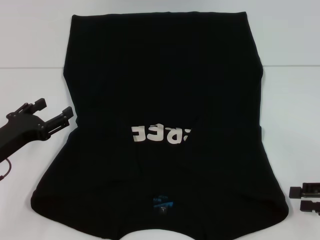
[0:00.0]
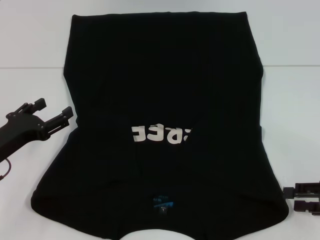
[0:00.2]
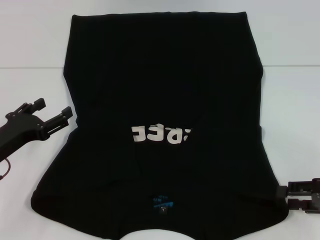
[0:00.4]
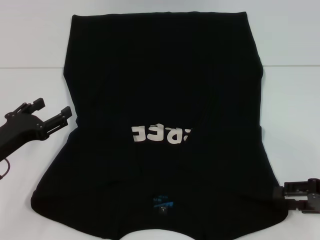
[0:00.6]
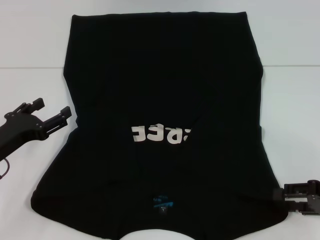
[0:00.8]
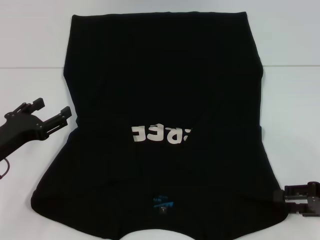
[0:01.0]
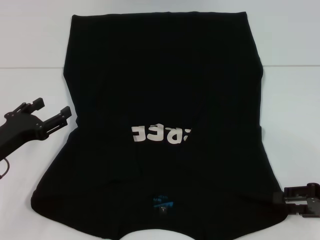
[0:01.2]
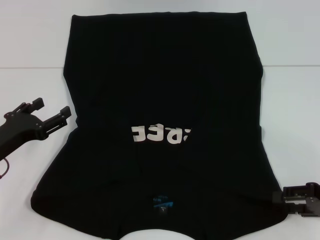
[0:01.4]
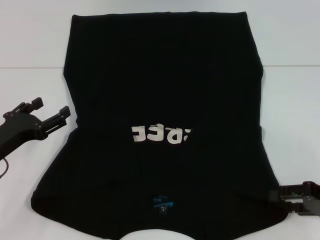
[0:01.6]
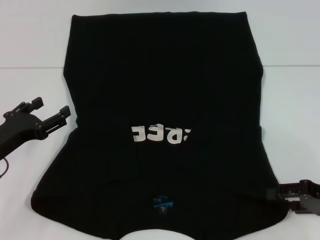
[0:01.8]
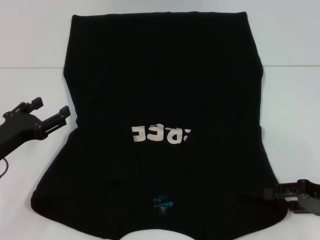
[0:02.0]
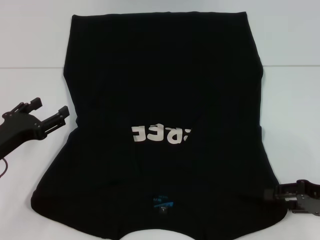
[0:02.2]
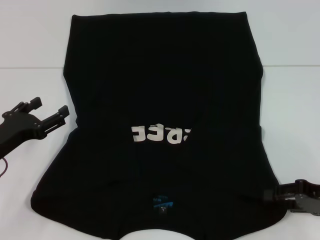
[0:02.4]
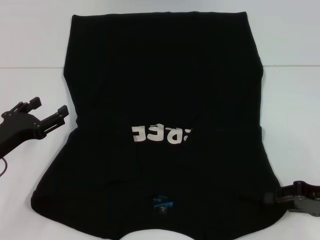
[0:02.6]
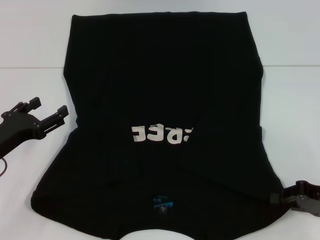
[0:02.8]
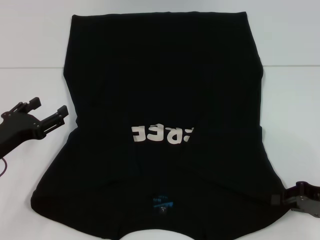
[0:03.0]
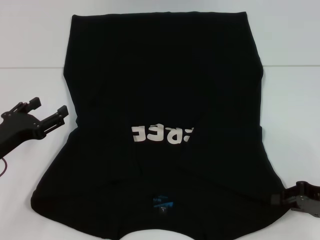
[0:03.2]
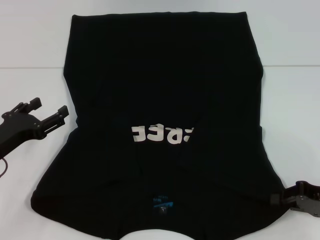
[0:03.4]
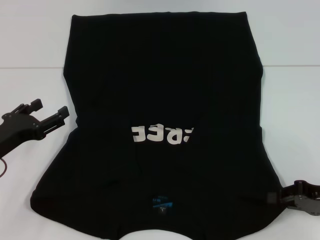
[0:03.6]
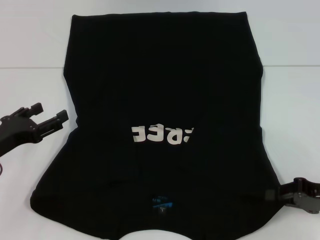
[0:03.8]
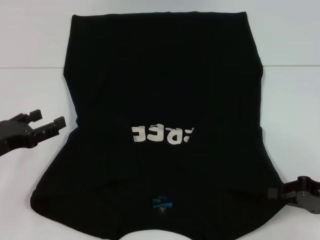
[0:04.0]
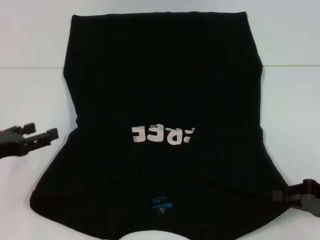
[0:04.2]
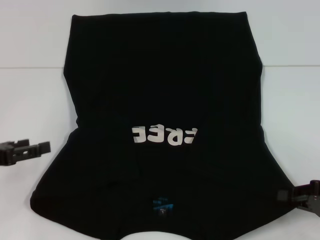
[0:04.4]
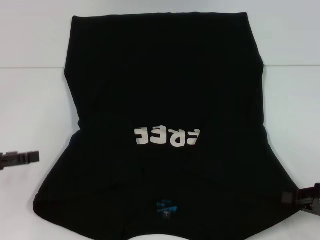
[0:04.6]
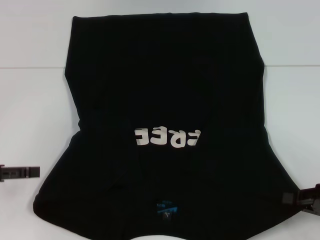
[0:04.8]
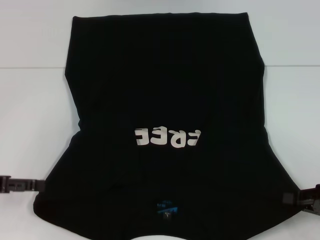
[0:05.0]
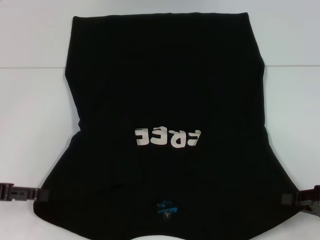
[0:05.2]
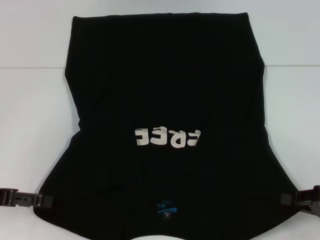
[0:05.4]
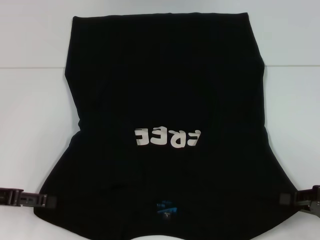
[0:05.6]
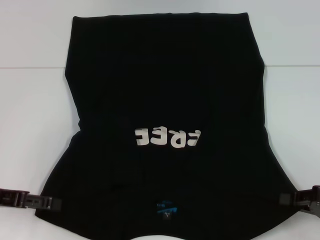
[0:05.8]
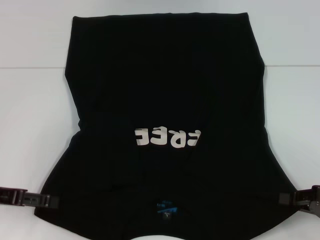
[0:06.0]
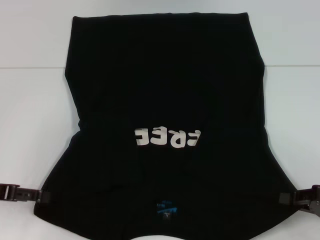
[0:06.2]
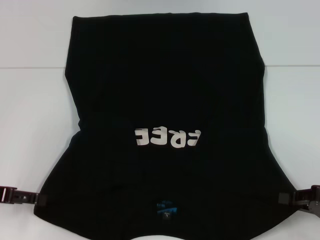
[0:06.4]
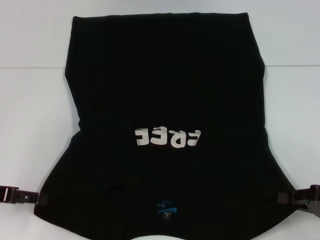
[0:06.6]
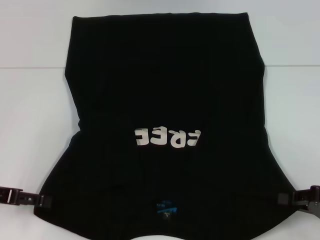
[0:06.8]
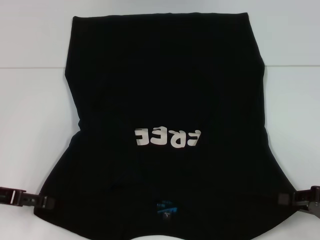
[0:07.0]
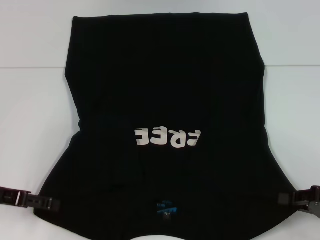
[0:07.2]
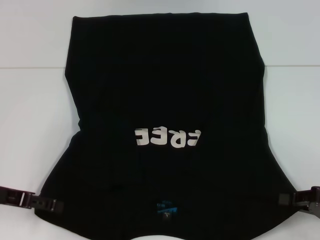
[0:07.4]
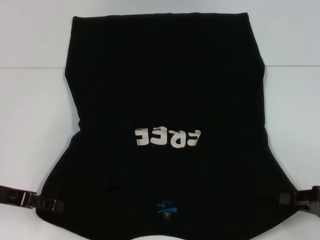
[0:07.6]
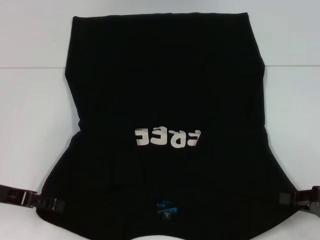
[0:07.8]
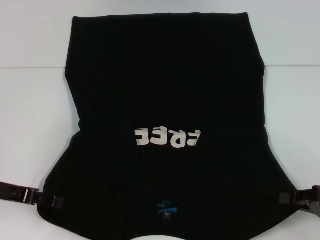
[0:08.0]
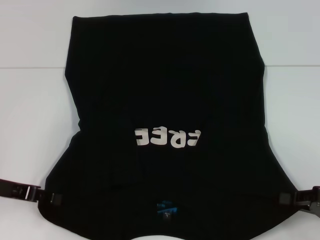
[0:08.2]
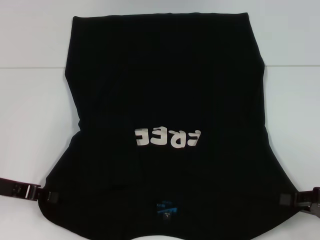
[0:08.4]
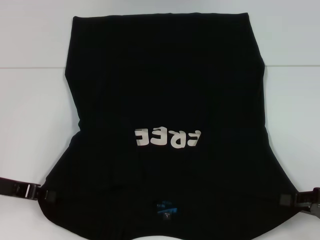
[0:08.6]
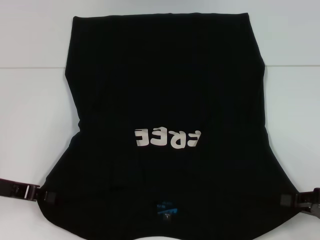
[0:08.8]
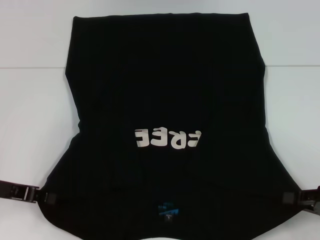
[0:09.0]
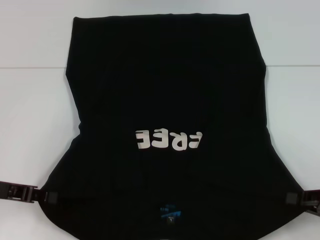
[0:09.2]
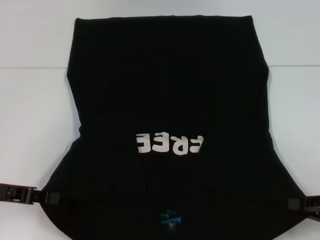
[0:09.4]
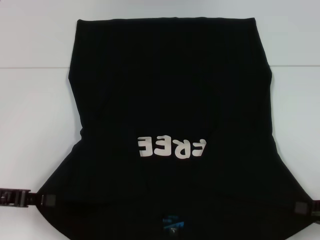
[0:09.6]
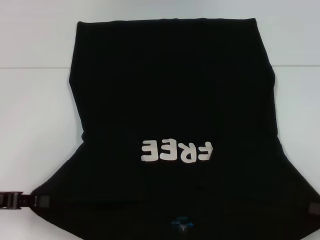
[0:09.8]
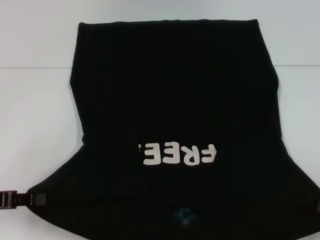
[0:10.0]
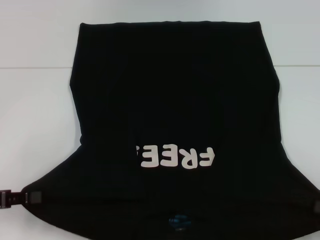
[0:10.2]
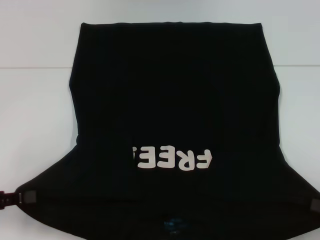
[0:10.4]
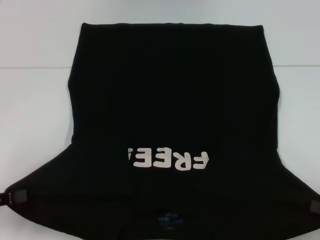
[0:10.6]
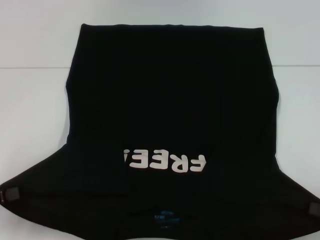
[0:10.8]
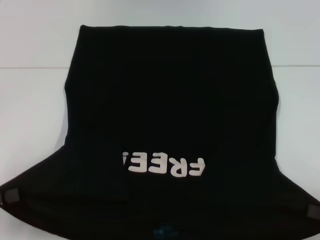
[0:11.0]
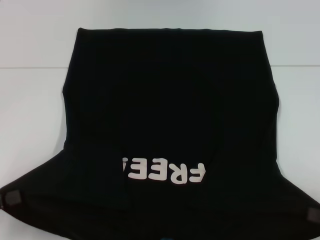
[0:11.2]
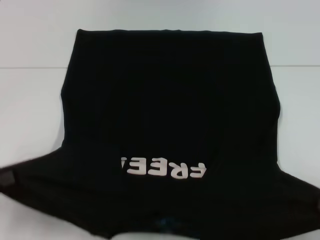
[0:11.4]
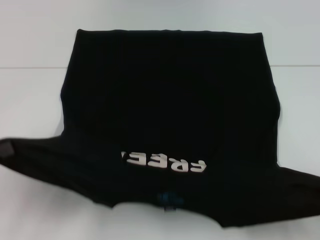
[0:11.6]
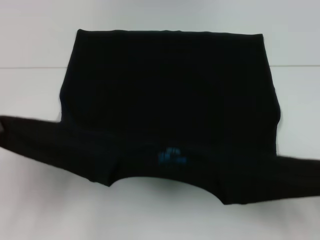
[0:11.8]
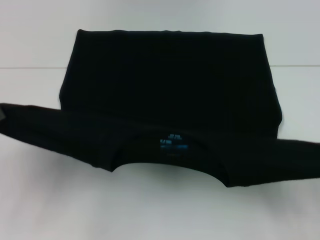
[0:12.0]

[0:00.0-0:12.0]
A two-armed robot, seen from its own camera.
Step, 0:00.0 to 0:03.4: Grab the bottom right corner with your right hand.
Step, 0:03.6 to 0:08.8: Grab the bottom left corner with your left hand.
0:00.0 to 0:01.6: The grippers move only a little.
0:01.6 to 0:03.0: The right gripper closes up.
0:03.0 to 0:04.4: The left gripper is displaced upward by approximately 5 cm.
0:07.6 to 0:09.0: The left gripper closes up.
0:09.0 to 0:10.4: The left gripper moves backward, approximately 5 cm, while the right gripper moves roughly 5 cm.

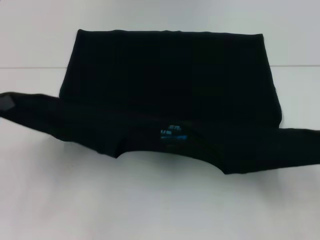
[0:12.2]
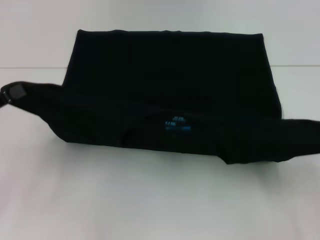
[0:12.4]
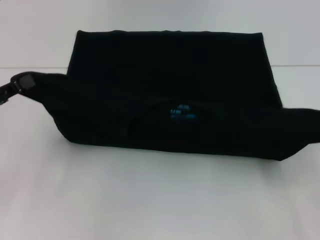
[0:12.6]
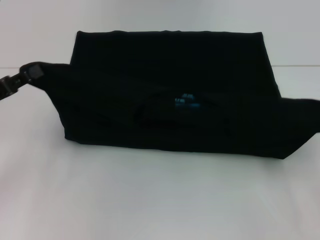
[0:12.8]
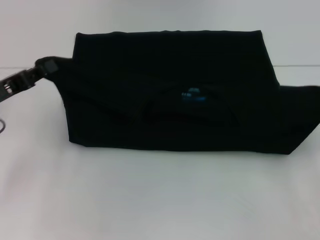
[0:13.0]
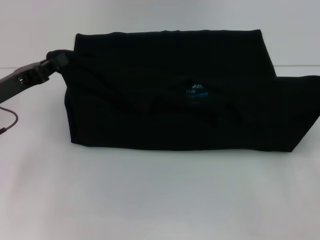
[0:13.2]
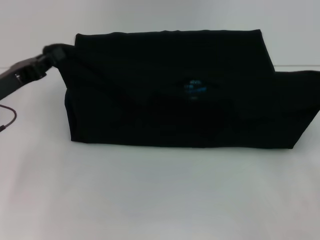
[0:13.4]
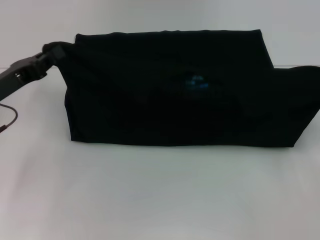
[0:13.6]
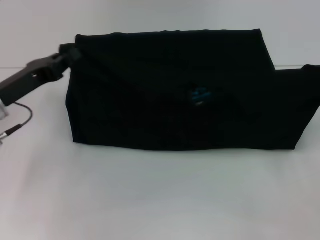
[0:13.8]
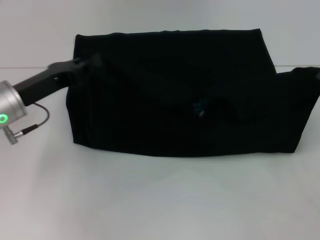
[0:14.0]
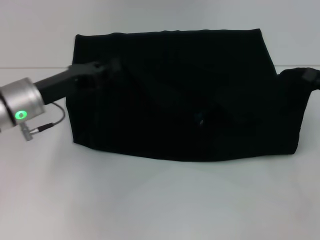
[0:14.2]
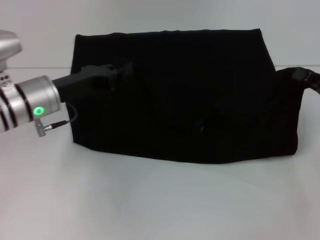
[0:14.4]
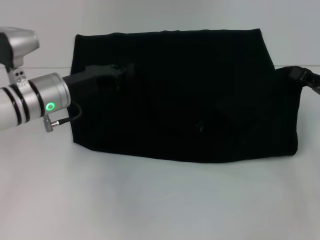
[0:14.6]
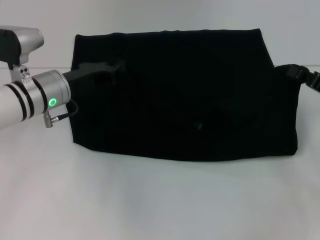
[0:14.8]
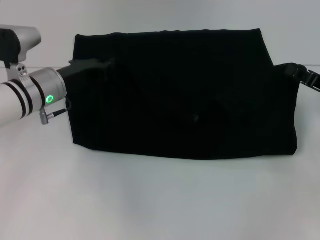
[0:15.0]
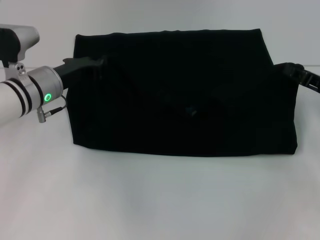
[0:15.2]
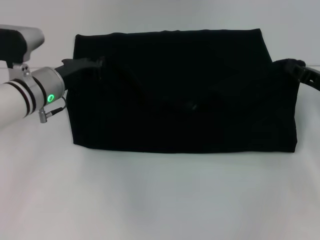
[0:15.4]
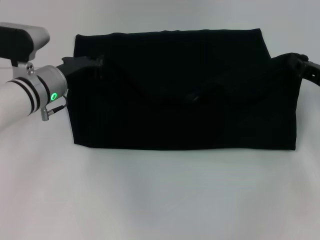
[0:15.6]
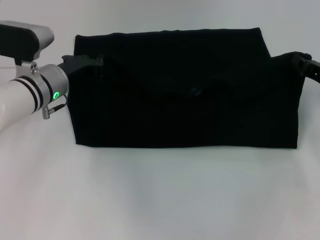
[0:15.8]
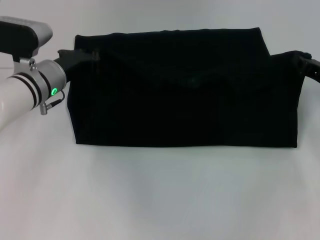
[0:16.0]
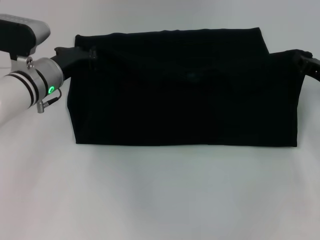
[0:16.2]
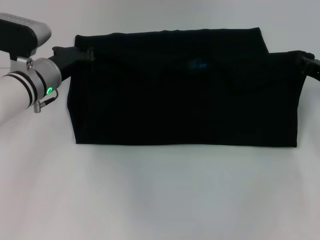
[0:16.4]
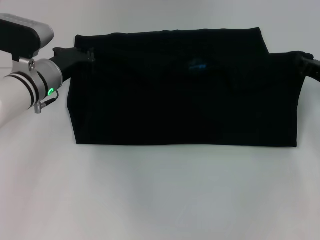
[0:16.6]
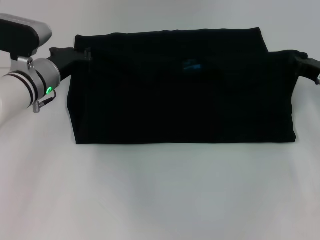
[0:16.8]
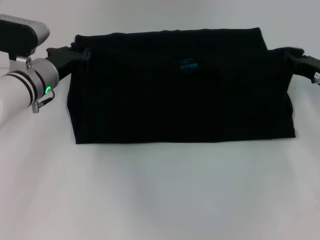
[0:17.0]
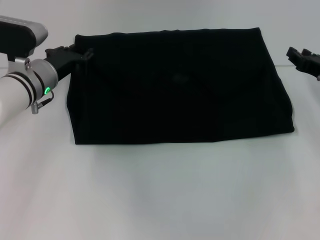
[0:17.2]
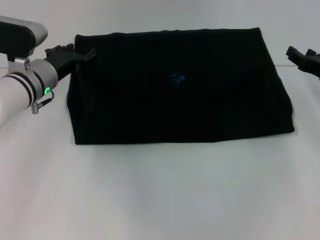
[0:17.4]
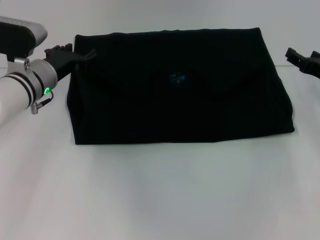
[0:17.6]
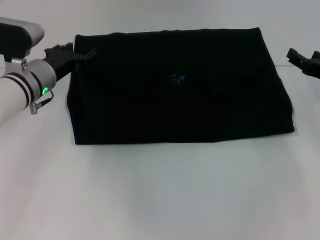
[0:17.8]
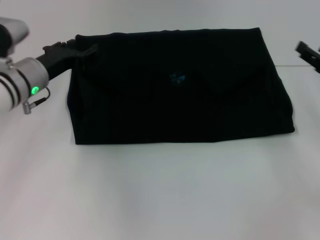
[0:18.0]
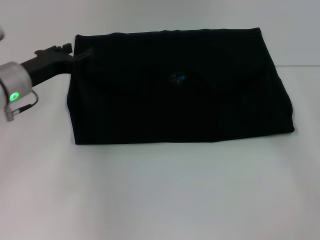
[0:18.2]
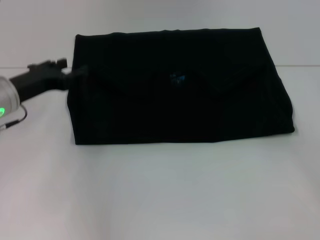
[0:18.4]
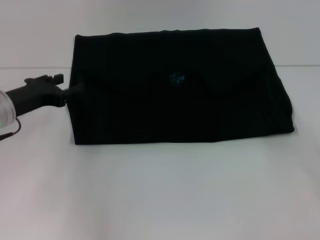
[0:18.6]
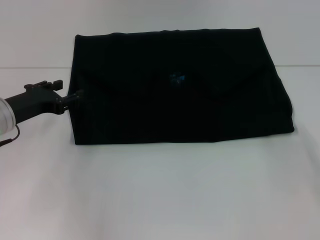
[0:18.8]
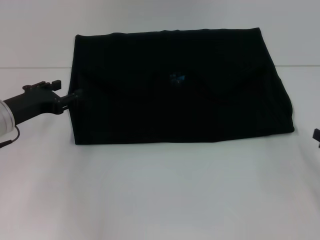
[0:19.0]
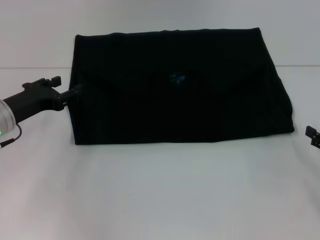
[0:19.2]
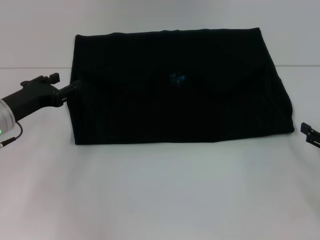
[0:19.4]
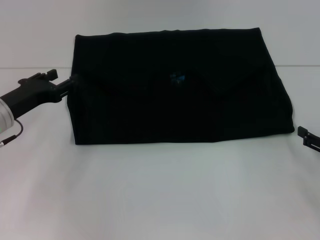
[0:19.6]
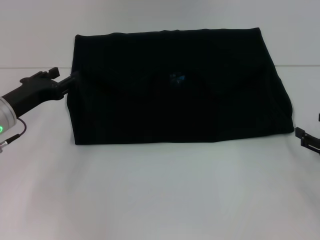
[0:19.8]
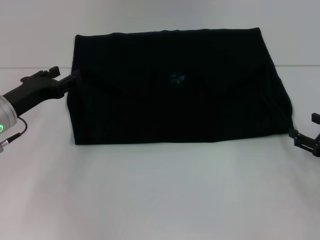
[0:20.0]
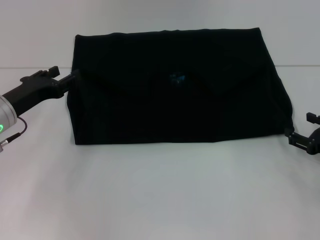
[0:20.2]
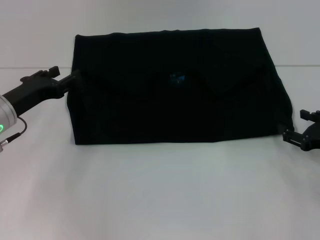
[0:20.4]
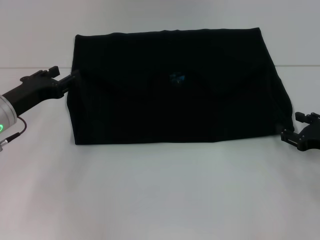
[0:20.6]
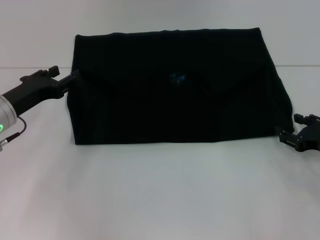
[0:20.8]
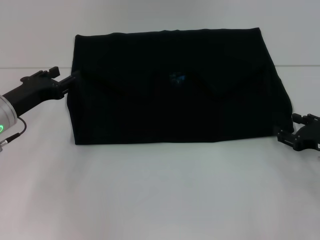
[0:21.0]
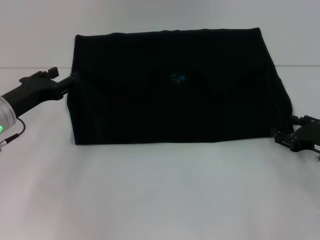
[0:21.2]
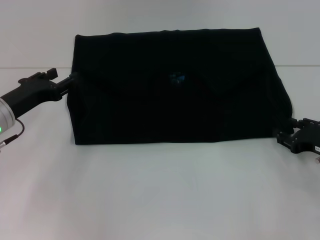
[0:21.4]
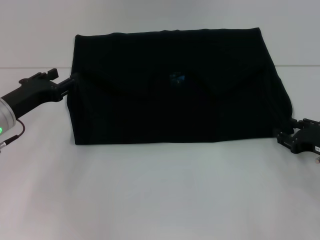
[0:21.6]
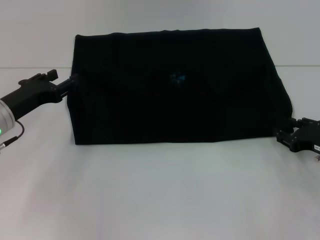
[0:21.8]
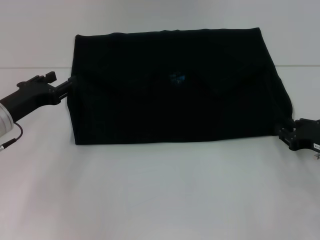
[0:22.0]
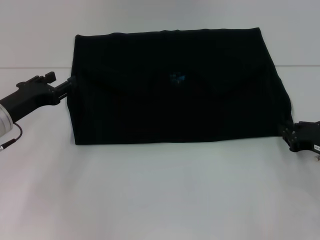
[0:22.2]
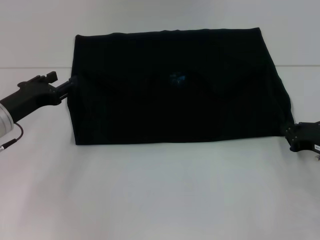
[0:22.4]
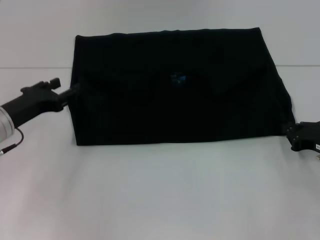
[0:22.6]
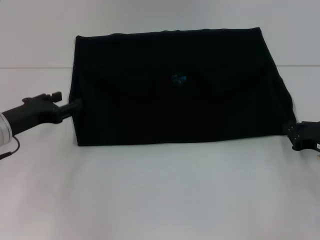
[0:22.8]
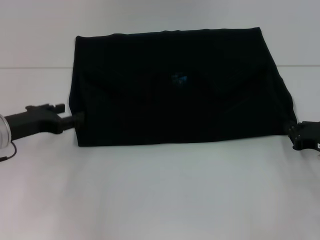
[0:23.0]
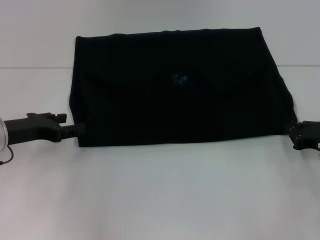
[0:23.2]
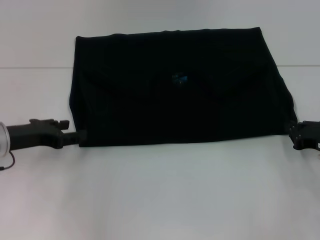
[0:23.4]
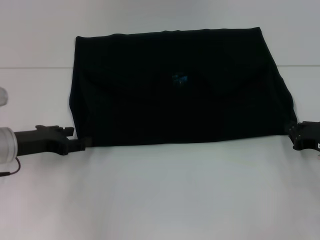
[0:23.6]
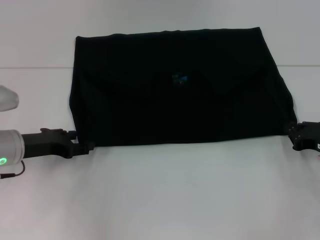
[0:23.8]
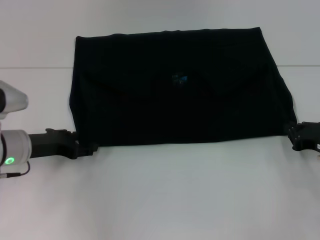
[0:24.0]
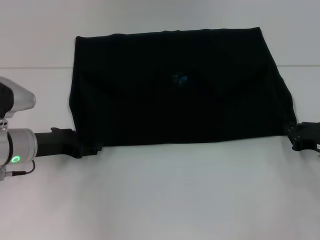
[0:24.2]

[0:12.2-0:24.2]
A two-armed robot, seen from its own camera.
Step, 0:12.2 to 0:17.8: Fold the clothes with your left hand.
Step, 0:12.2 to 0:17.8: Fold the clothes with your right hand.
0:12.2 to 0:13.8: The left gripper goes about 15 cm forward and to the right. The right gripper shifts some 5 cm forward.
0:13.8 to 0:15.2: The right gripper moves forward and to the left, about 10 cm. The left gripper heads forward and to the right, covering about 10 cm.
0:15.2 to 0:16.6: The grippers make only small movements.
0:16.6 to 0:18.2: The right gripper goes some 10 cm backward and to the right, and opens, while the left gripper ends up roughly 5 cm from where it was, and opens up.
0:18.2 to 0:19.8: The left gripper shifts by roughly 5 cm, while the right gripper shifts some 5 cm downward.
0:19.8 to 0:21.2: The right gripper ends up about 5 cm from where it was.
0:21.2 to 0:22.6: The right gripper closes.
